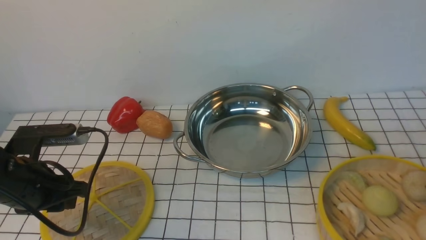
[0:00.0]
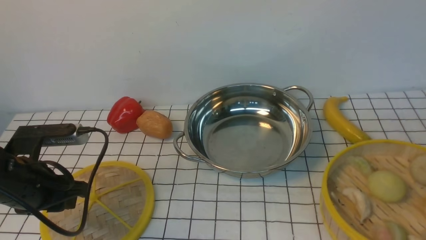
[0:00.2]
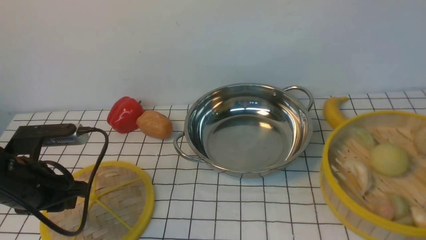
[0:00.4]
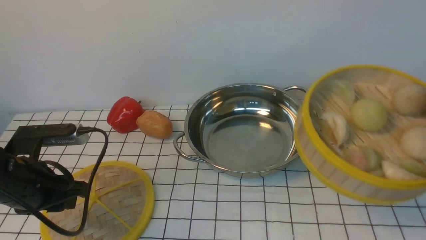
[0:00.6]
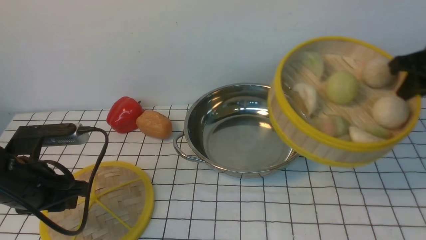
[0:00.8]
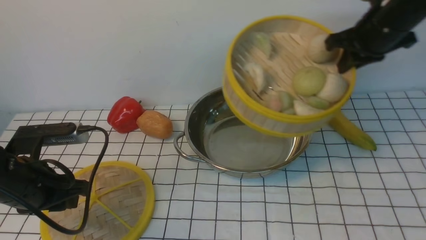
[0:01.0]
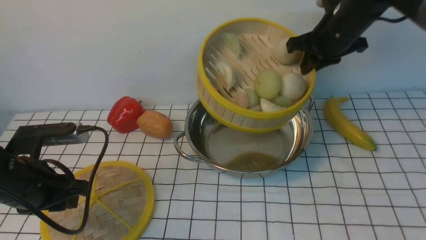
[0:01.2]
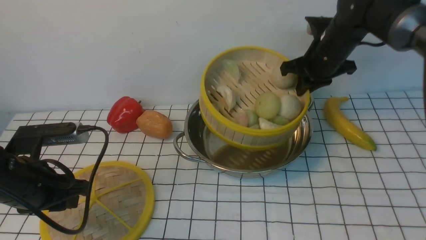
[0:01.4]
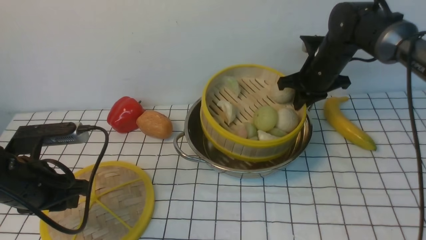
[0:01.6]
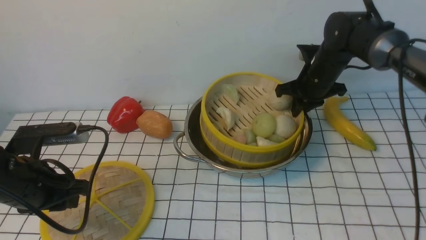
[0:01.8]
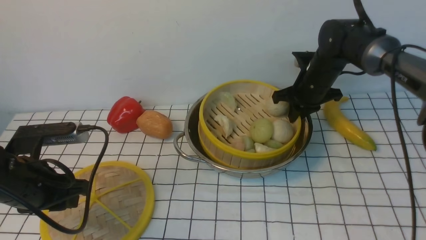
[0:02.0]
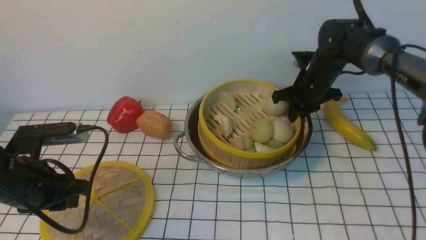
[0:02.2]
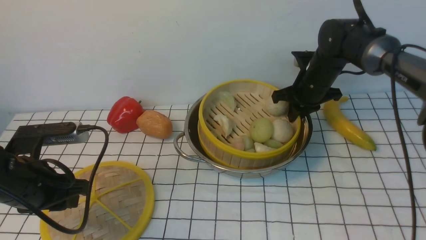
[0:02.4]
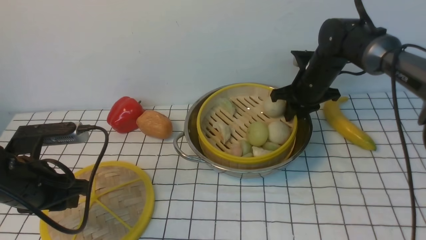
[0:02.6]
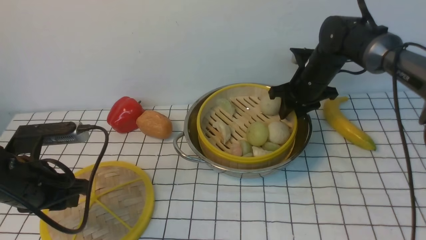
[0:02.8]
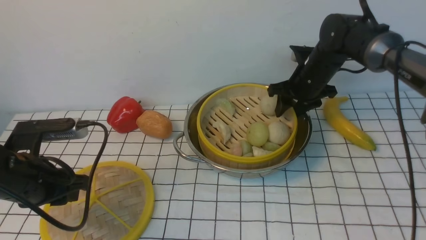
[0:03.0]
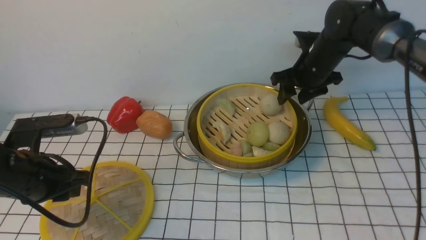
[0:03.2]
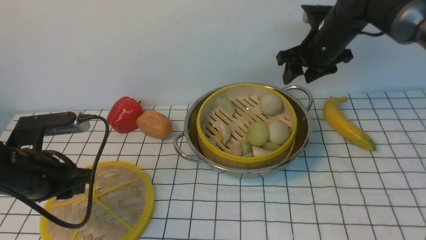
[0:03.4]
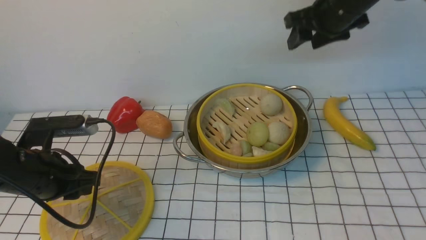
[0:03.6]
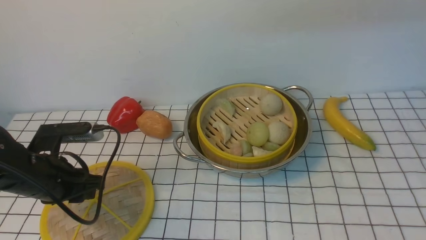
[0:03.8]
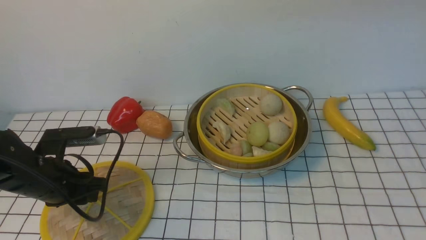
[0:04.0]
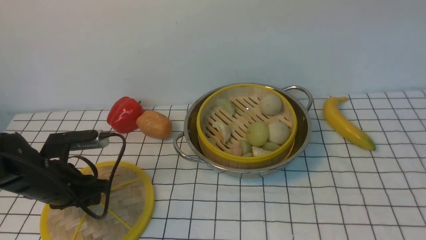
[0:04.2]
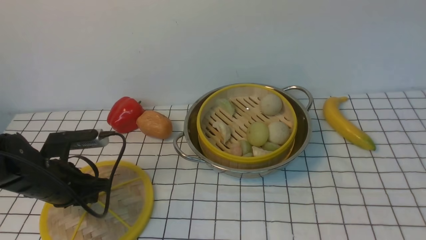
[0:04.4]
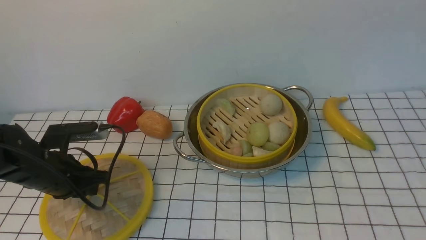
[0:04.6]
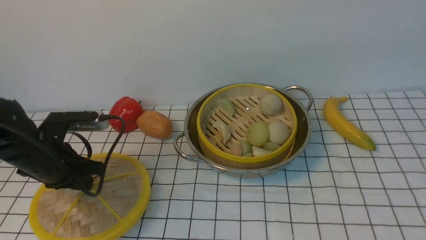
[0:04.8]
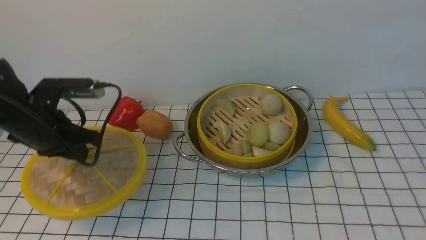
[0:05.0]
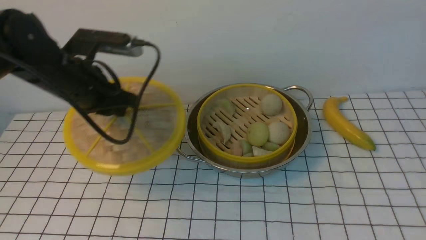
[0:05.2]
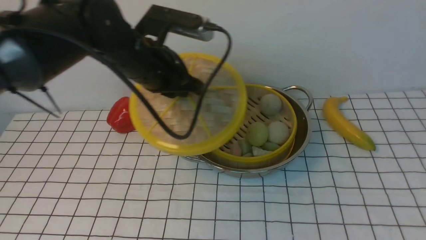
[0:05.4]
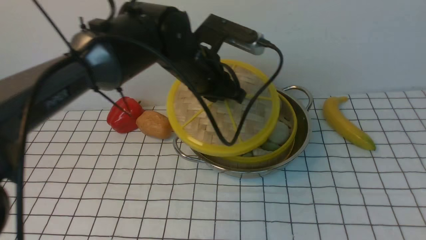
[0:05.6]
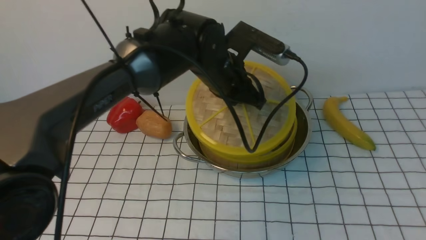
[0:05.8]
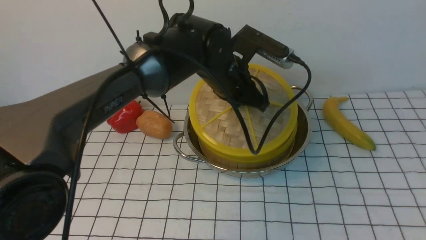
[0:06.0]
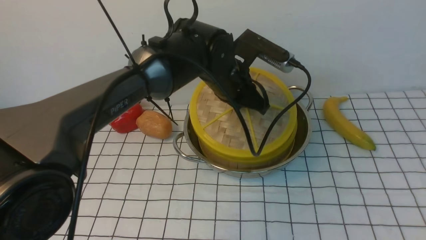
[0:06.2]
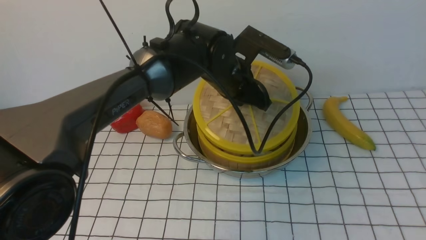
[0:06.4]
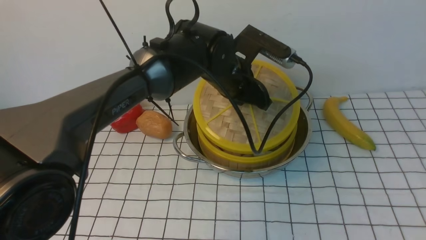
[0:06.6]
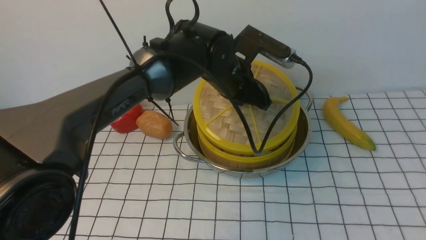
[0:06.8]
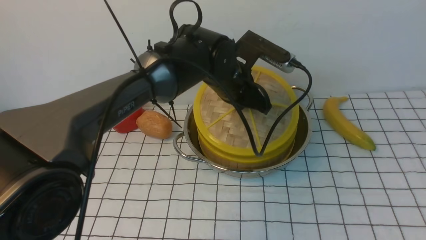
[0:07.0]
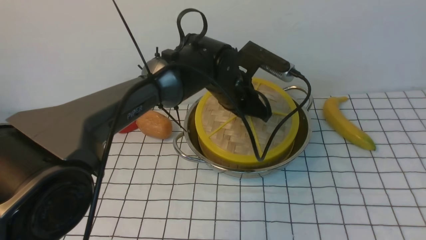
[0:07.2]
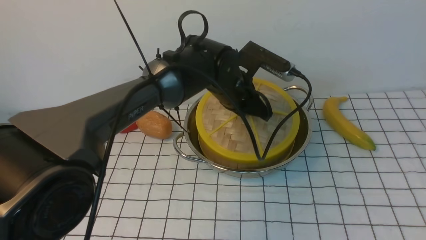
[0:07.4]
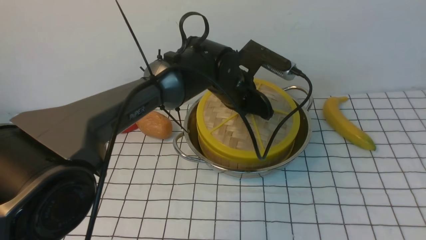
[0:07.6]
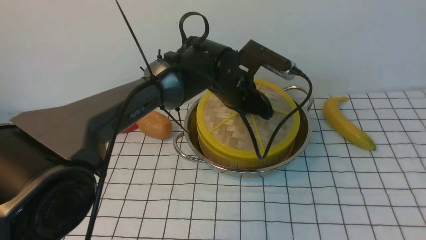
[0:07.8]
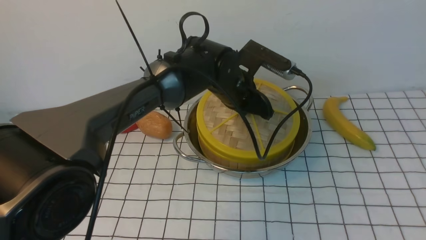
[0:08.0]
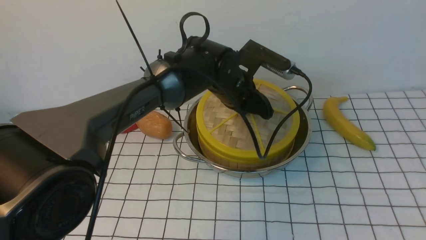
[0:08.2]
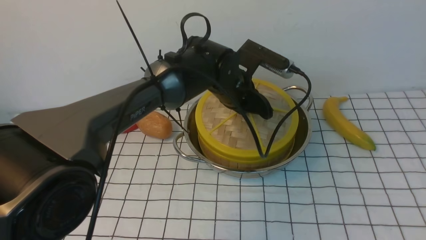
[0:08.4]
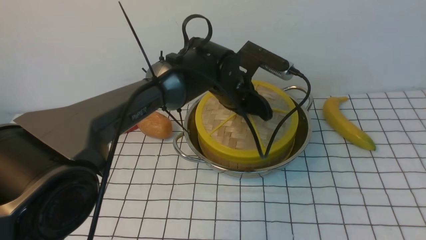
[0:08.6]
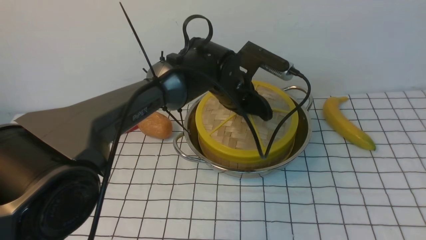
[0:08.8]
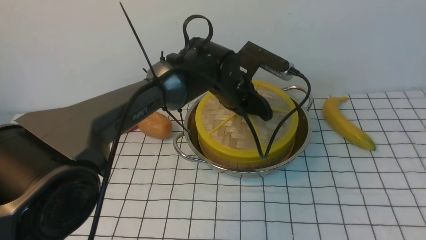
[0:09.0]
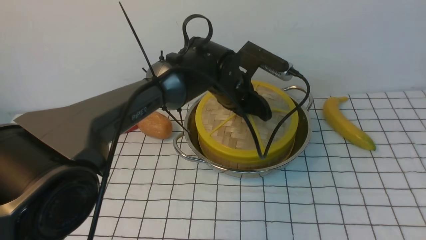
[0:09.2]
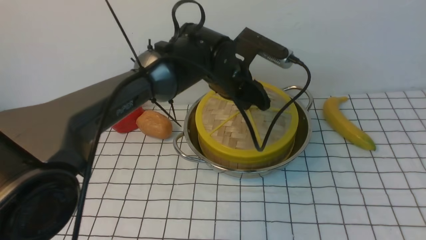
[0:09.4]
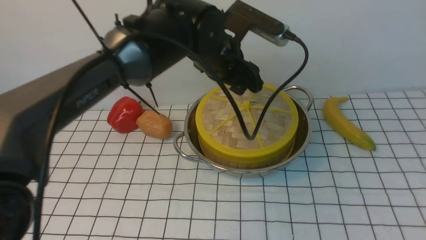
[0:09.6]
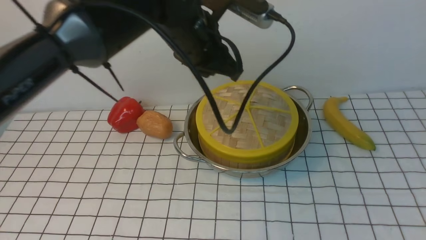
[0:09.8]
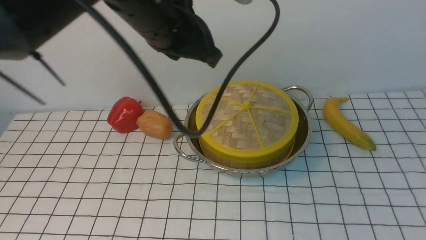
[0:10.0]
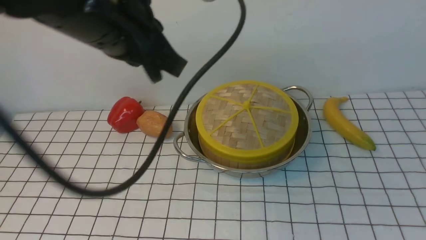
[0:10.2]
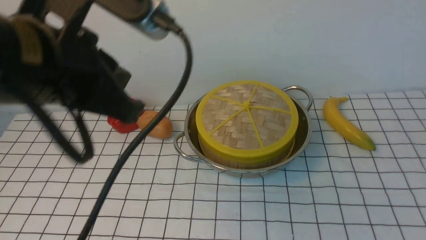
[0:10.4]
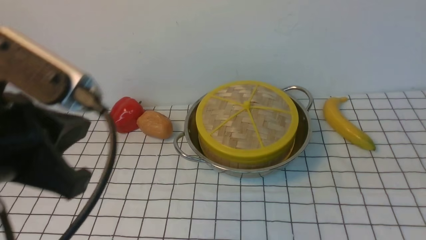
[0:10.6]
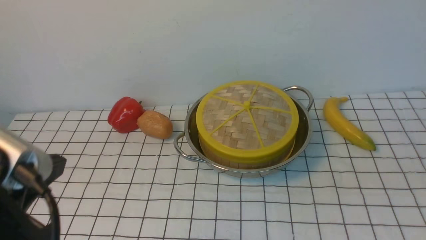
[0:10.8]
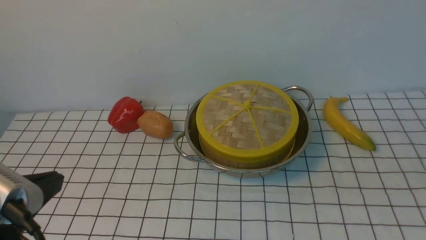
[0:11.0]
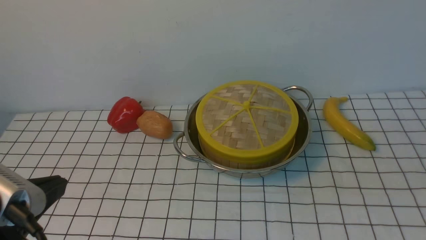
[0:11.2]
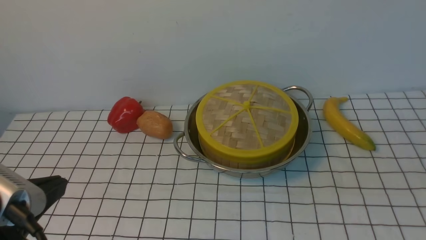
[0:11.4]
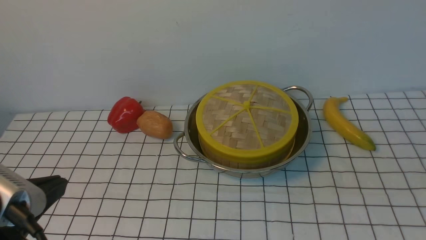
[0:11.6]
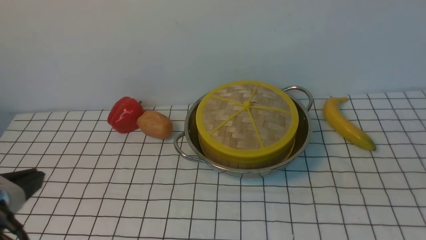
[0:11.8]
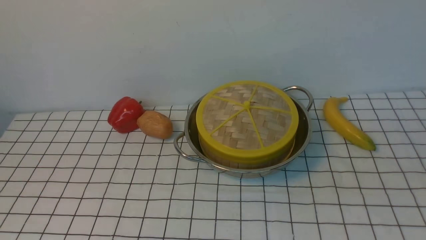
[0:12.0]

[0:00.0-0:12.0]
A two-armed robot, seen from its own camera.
Task of the whole recording: place the steamer in the pot on the white tablecloth, and put the lid on the steamer.
Step, 0:00.2 to 0:03.2: use the right arm to put the steamer into the iron steamer pot in the middle.
Step, 0:03.6 to 0:04.8: use the left arm to lift the lid of the steamer.
Step, 0:05.0 to 0:09.6: use the left arm to place the steamer lid on the steamer.
0:00.0 to 0:01.6: The right gripper moves forward and to the left, roughly 30 cm.
0:01.6 to 0:03.0: The right gripper opens its fingers.
0:03.0 to 0:04.4: The right gripper travels upward and backward by about 50 cm, while the left gripper goes roughly 5 cm downward.
0:04.4 to 0:06.0: The right gripper moves backward and downward, about 10 cm. Meanwhile the left gripper travels to the right and forward by about 30 cm.
0:07.6 to 0:09.0: Neither gripper changes place.
0:09.0 to 0:10.4: The left gripper goes some 30 cm backward, upward and to the left, and closes its fingers; the right gripper heads downward, covering roughly 10 cm, and closes its fingers.
0:10.4 to 0:12.0: The left gripper shifts some 20 cm backward, to the left and downward; the right gripper heads downward, covering roughly 10 cm.

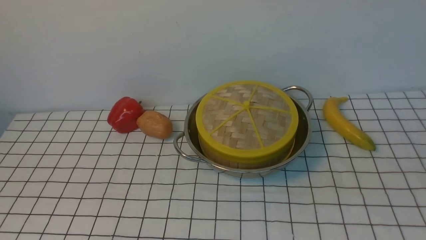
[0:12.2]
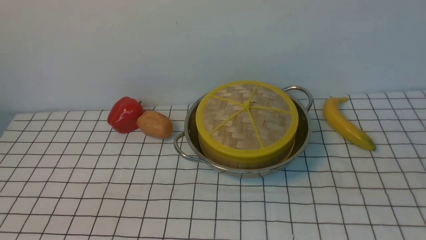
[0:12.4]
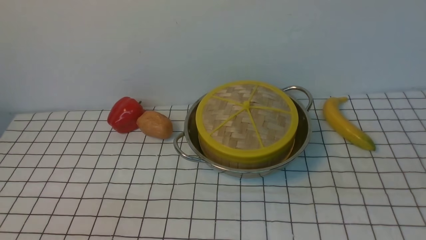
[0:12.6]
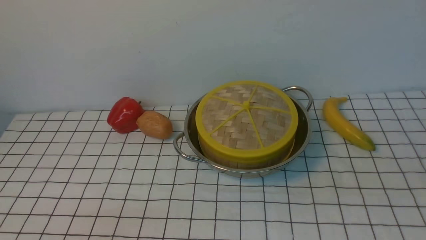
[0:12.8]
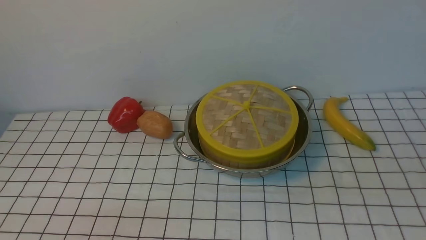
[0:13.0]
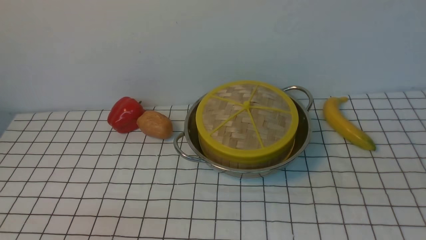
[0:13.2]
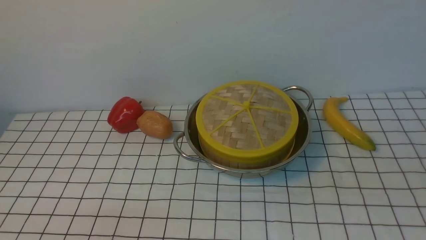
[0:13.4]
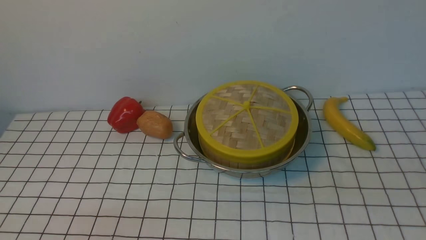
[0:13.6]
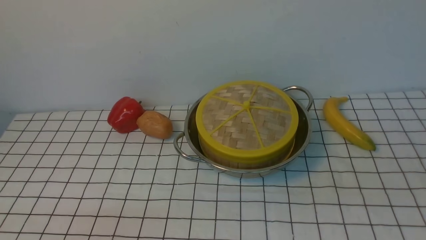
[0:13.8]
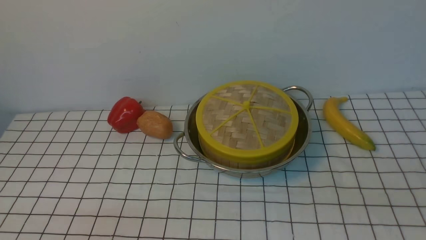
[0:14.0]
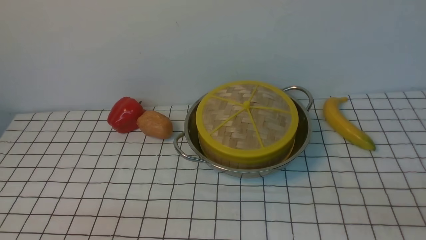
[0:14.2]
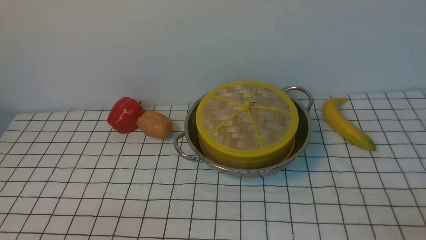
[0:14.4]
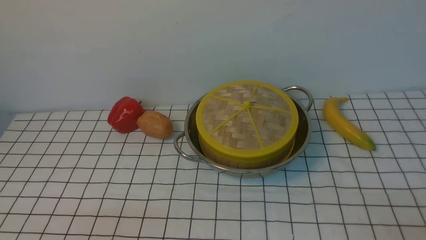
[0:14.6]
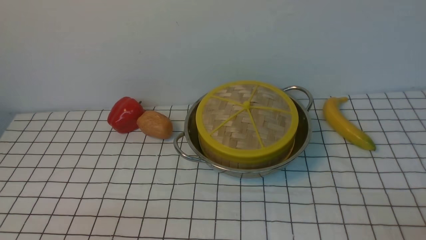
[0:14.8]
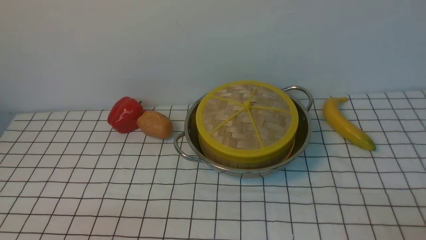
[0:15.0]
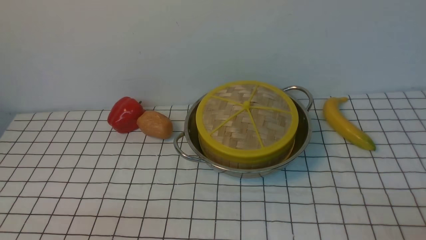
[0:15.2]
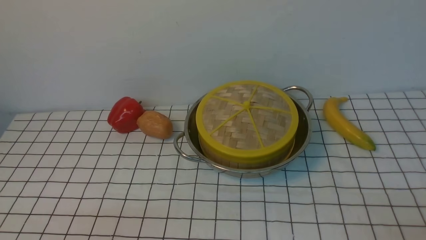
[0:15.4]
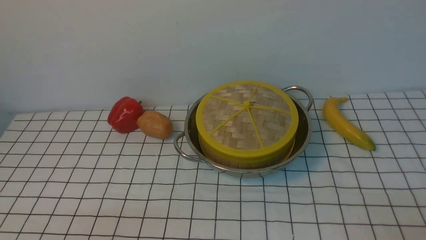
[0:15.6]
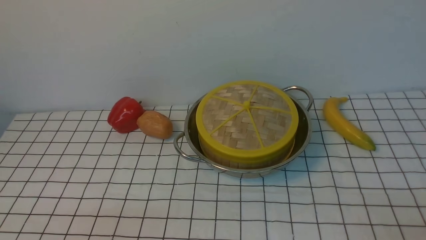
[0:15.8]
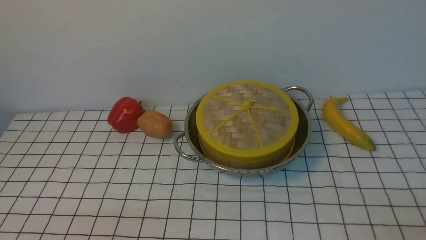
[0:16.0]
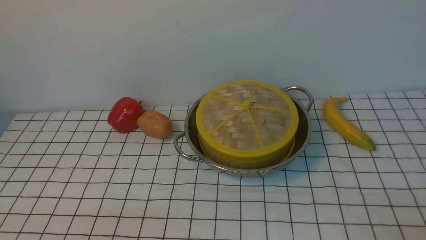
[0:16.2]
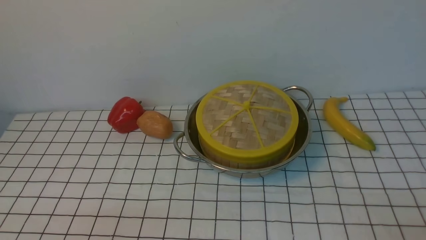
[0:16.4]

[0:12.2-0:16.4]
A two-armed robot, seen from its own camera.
Task of the whole recording: place the steamer in the pot on the white tablecloth, and put the lid on the steamer.
0:15.0 to 0:16.4: Both grippers stay about where they are.
